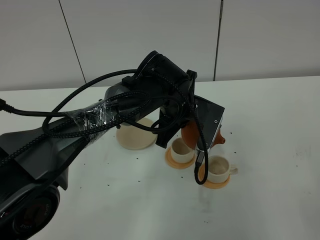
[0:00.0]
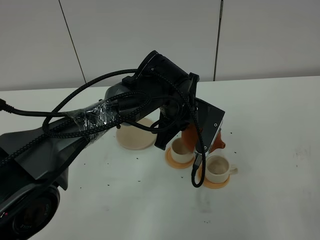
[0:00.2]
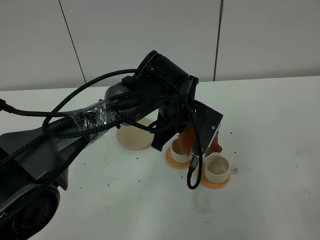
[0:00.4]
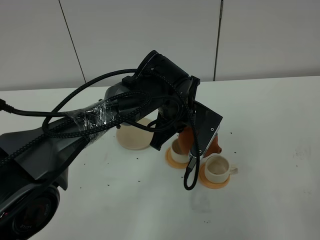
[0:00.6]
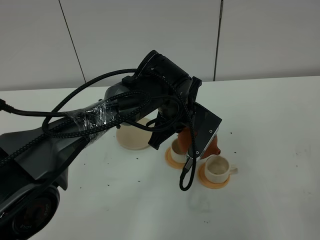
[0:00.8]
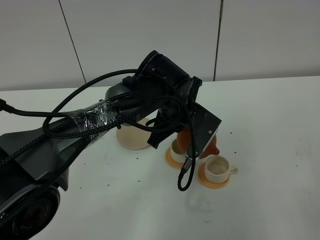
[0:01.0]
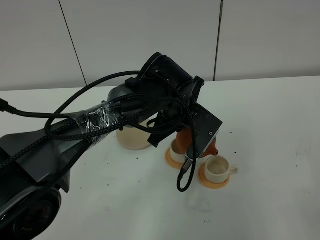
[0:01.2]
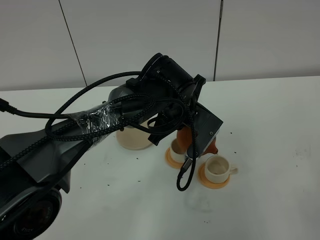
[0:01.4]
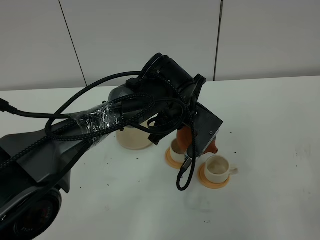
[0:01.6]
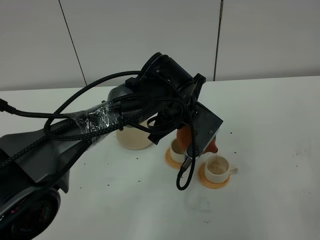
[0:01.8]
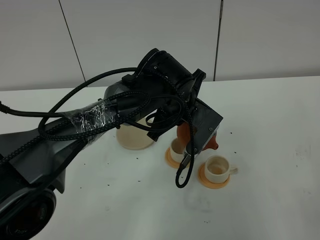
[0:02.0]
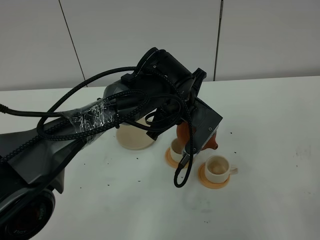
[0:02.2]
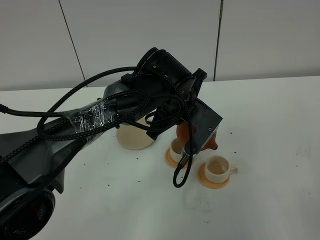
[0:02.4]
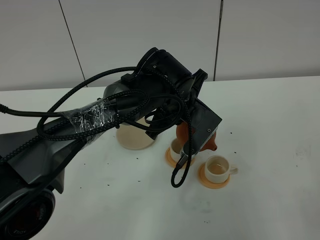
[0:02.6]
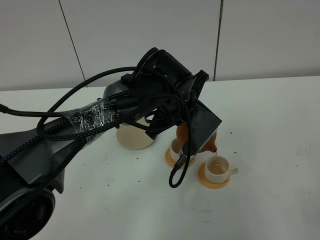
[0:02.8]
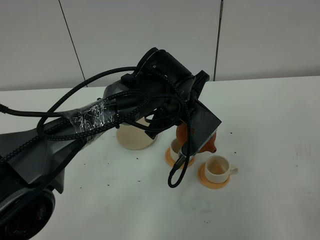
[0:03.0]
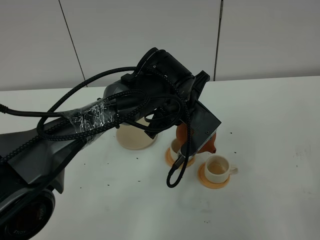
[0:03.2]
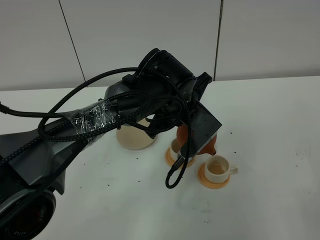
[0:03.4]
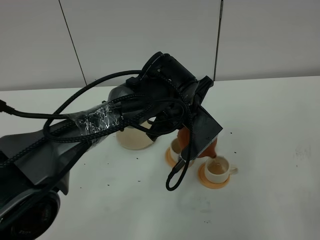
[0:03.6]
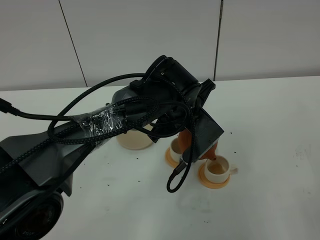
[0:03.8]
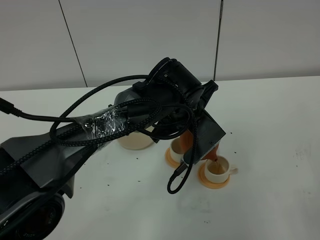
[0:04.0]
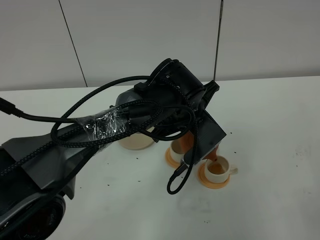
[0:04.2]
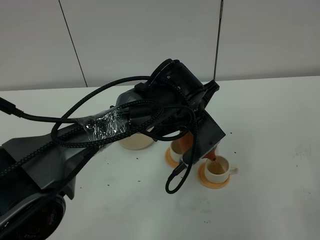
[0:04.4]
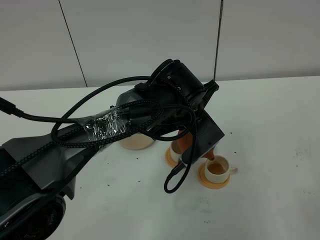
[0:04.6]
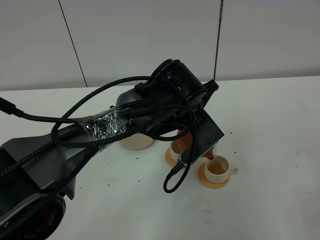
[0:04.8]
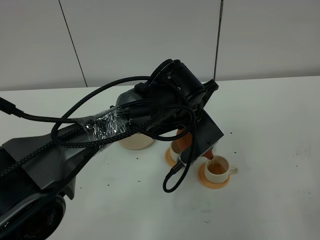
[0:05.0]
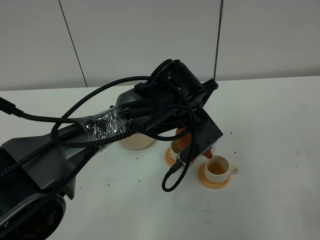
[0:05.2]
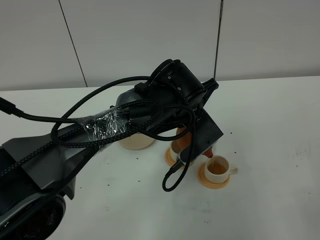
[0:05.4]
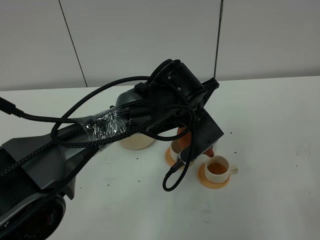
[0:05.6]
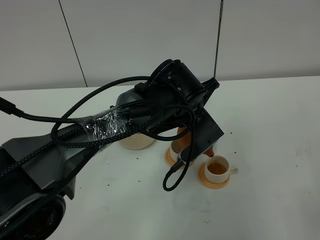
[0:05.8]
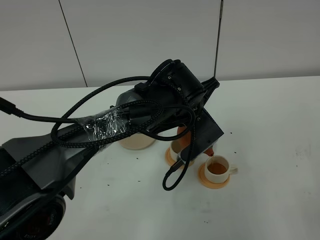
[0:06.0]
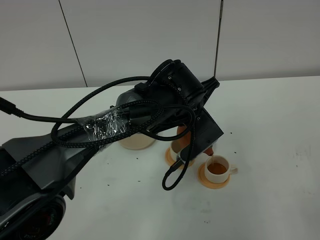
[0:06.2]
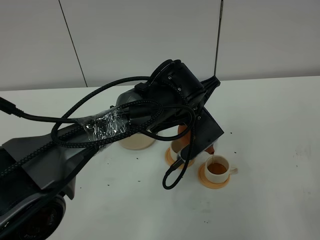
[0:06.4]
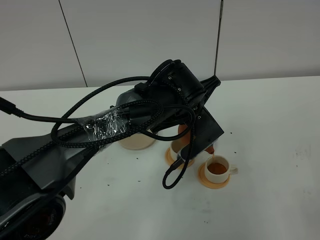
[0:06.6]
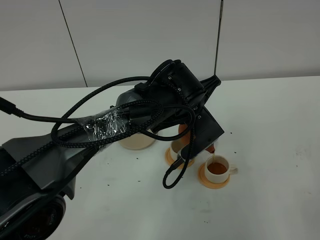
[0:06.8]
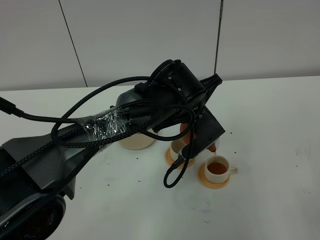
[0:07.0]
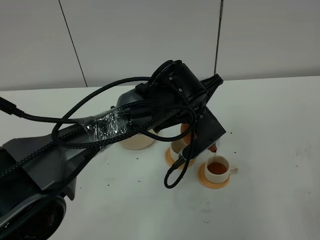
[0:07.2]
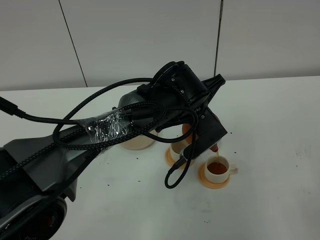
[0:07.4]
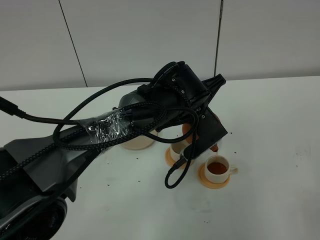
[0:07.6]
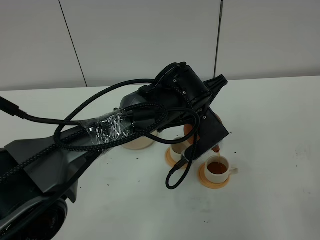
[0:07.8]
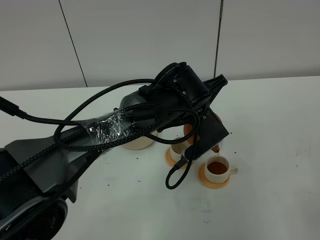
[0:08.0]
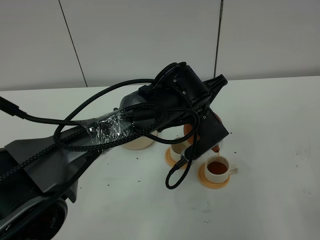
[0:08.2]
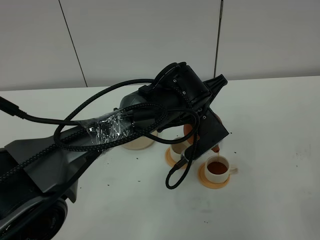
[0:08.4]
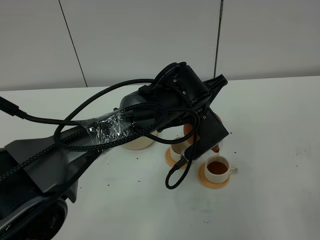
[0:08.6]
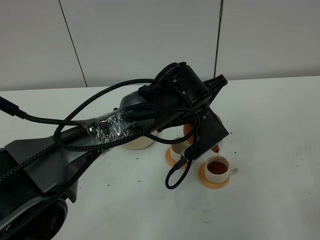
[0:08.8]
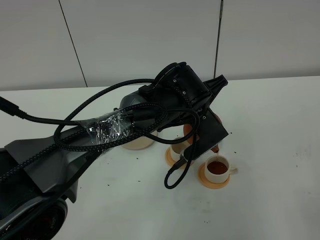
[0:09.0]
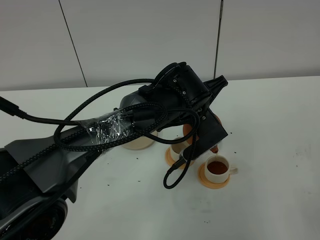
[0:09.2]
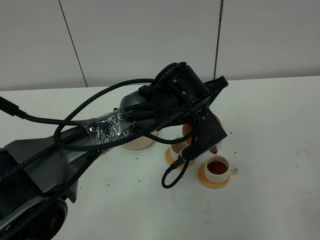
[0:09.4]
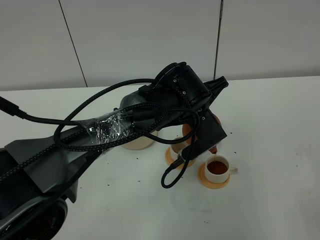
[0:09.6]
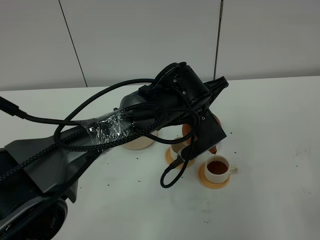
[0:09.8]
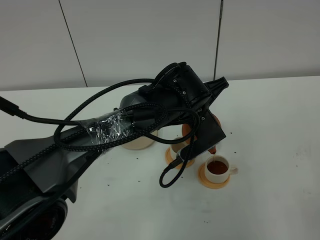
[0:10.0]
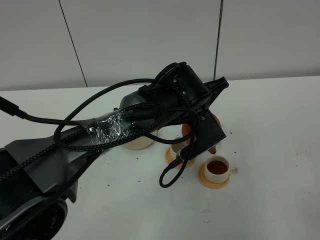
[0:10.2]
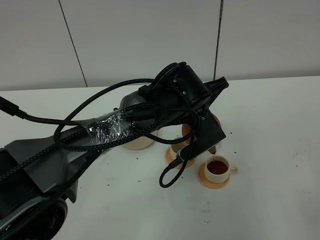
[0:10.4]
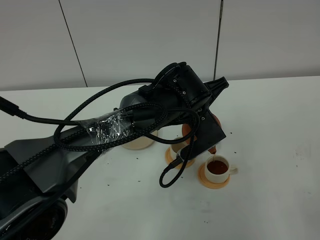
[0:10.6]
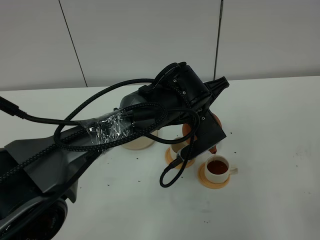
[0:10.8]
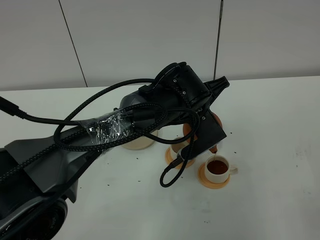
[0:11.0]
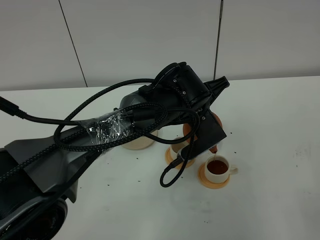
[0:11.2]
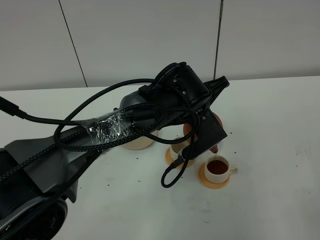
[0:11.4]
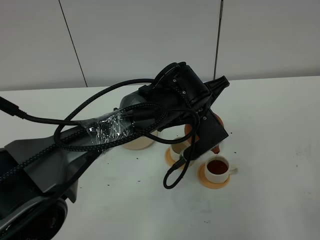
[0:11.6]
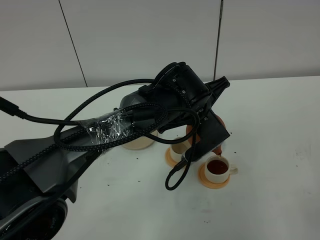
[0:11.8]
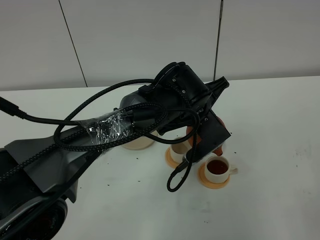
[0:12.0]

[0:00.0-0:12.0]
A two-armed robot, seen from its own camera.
Task of the whole recording: grasp the brown teapot and pour the tea into the two white teacups one by one, put the brown teapot back in its original place.
0:00.0 to 0:03.0: The grippers stay close to where they were, moving slightly.
0:03.0 to 0:04.4: The grippers move only a little.
0:04.4 to 0:06.0: Both grippers stay about where they are.
0:06.0 to 0:07.6: The two grippers keep their place.
0:07.6 to 0:10.4: The two grippers keep their place.
0:10.4 to 0:12.0: The grippers move only a little.

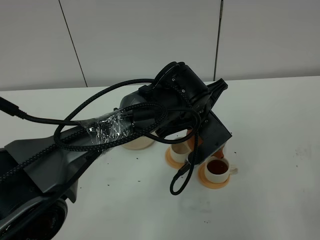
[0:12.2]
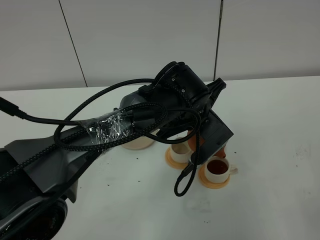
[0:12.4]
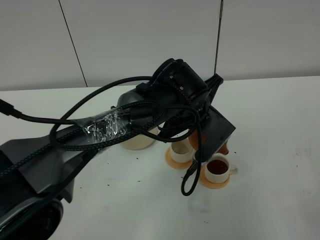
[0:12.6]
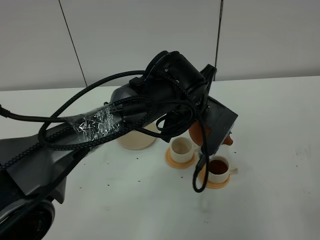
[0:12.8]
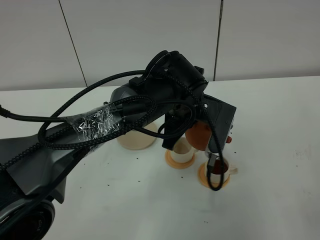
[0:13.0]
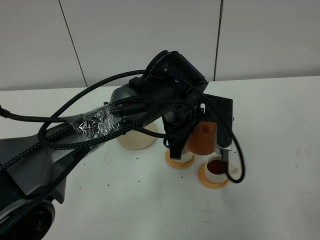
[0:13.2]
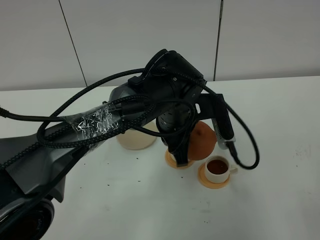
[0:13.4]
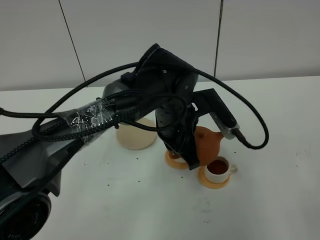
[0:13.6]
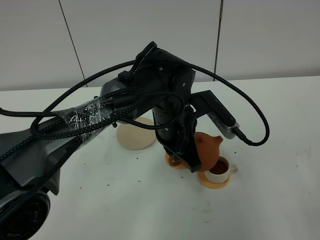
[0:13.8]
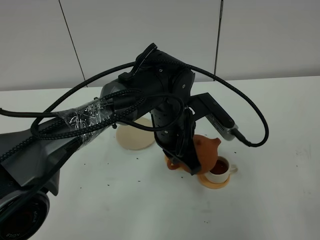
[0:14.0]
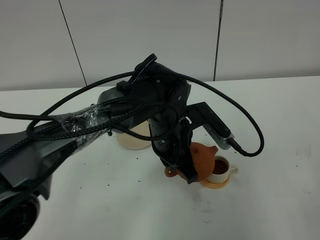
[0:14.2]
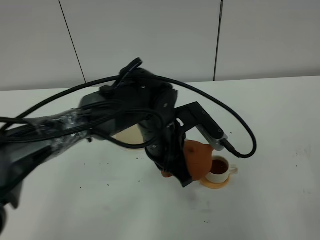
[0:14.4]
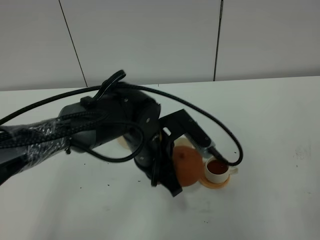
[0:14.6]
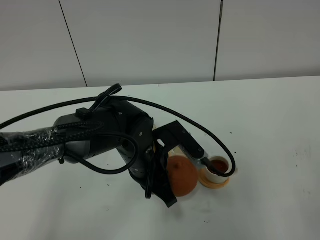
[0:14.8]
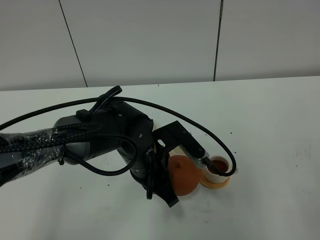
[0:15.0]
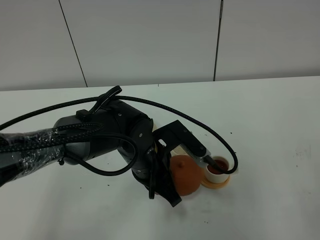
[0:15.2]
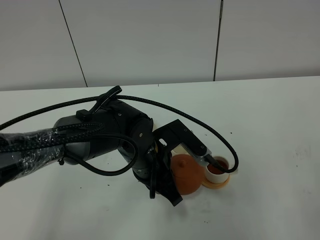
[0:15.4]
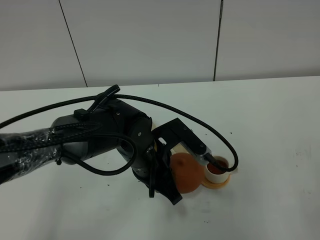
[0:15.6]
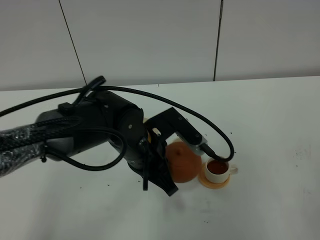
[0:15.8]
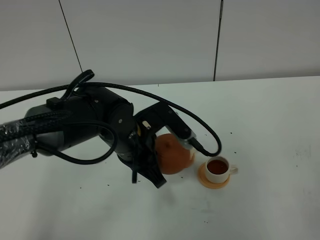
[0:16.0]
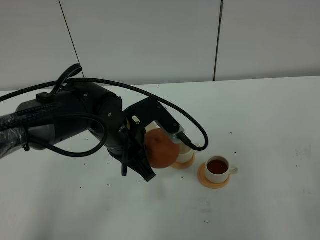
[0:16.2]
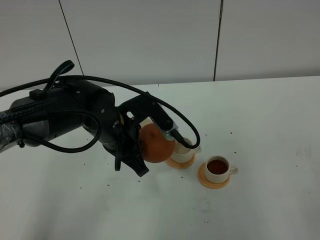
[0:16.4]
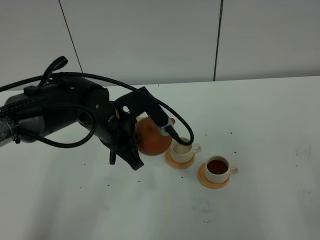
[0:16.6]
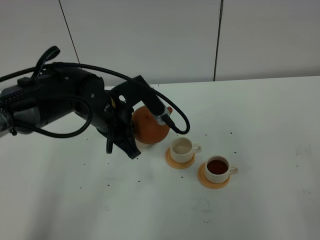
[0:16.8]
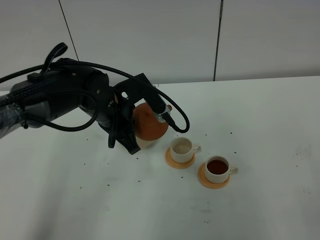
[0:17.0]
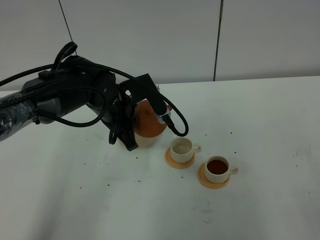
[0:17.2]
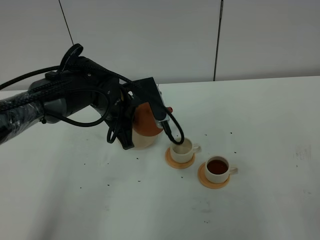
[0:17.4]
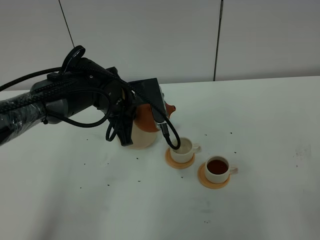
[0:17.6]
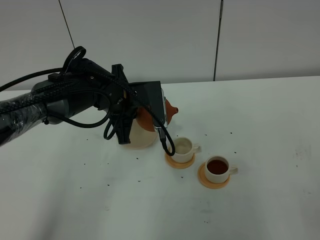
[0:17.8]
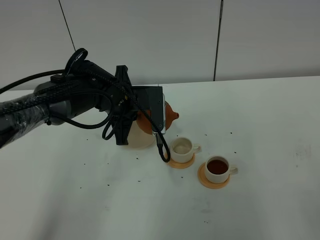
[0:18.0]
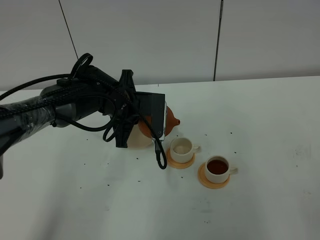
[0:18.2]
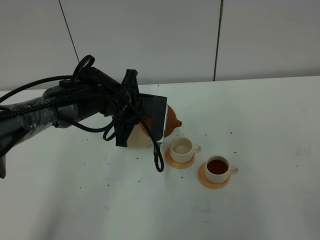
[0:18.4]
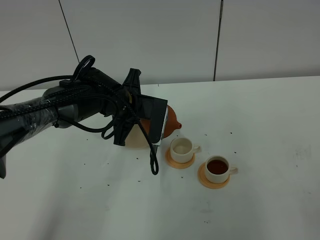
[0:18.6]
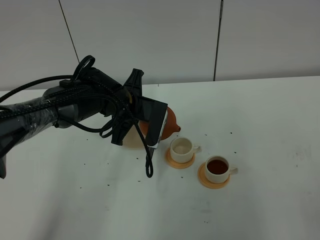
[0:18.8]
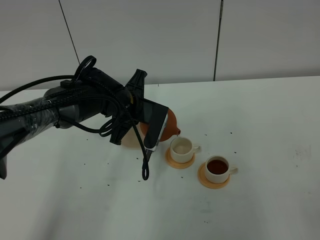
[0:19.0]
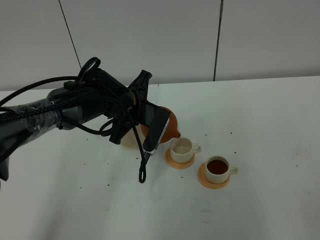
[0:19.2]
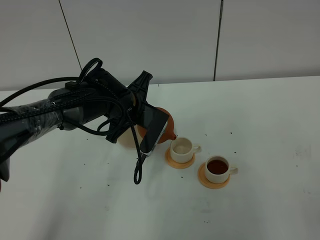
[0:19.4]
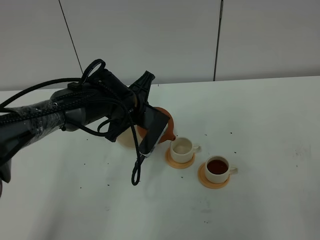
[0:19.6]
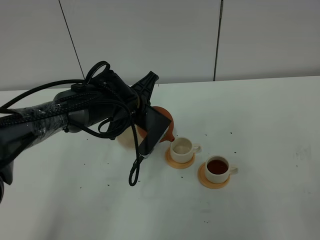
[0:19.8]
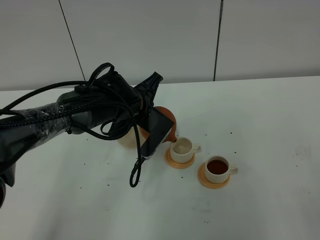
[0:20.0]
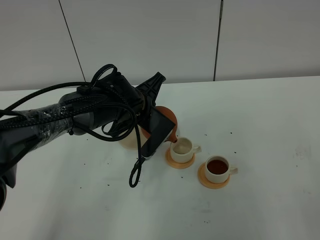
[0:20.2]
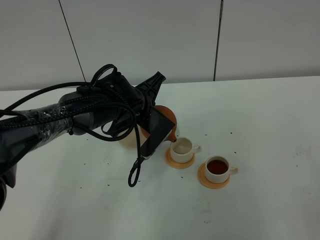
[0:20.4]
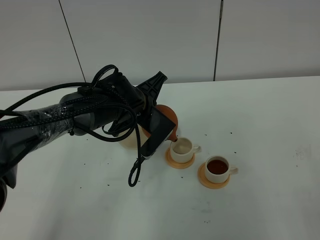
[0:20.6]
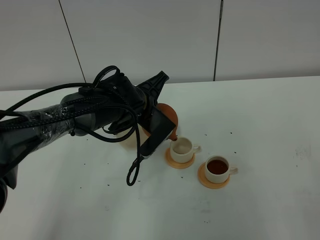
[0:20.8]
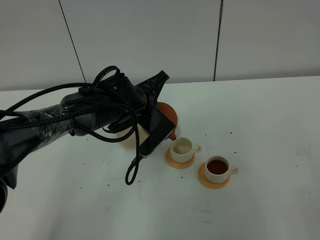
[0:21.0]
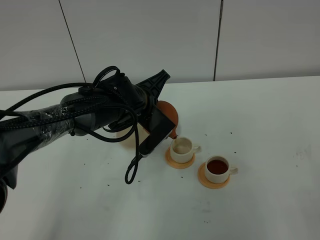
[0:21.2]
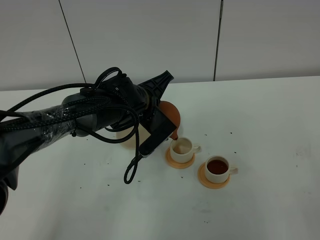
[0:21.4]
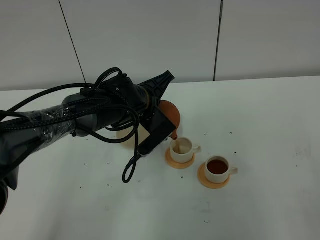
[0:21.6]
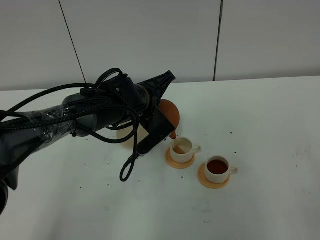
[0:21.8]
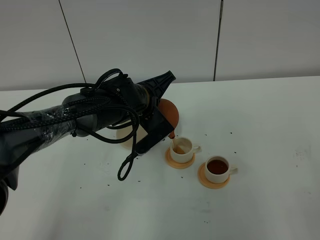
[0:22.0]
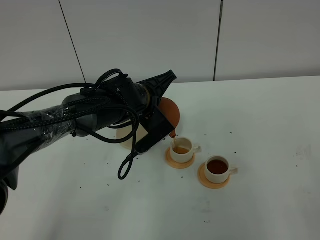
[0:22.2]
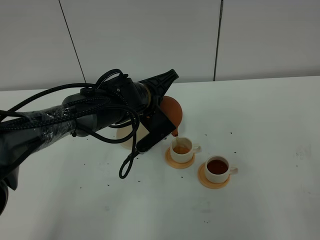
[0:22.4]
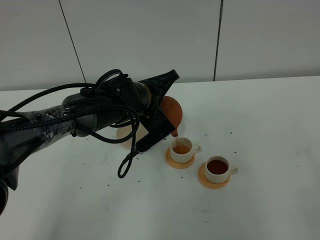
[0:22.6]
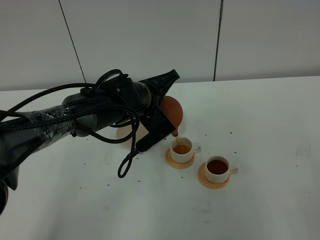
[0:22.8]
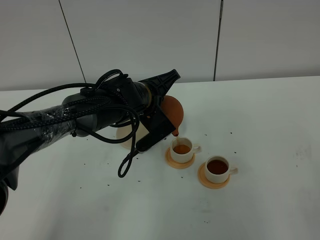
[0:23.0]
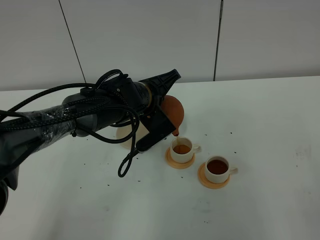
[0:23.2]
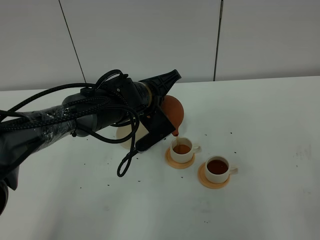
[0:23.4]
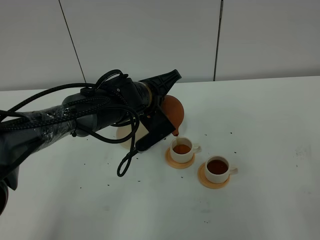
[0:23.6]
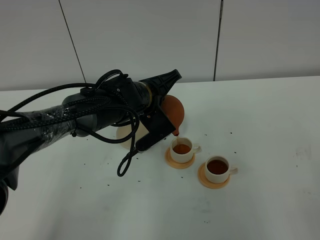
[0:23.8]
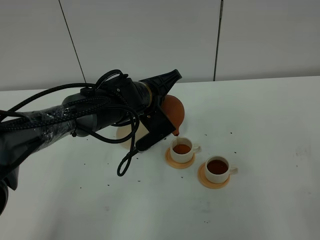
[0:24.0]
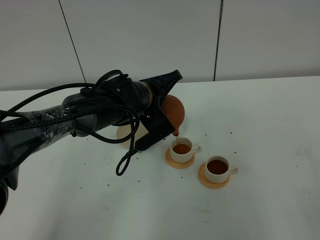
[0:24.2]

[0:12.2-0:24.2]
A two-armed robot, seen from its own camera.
Task of the whole recording: grasp the brown teapot and pour the tea into the two white teacups one by one, put the brown teapot back in its original place.
0:13.8 to 0:15.2: The left gripper goes about 5 cm to the left and backward.
0:15.2 to 0:16.6: The left gripper is displaced to the left by approximately 5 cm.
0:16.6 to 0:18.2: The left gripper goes roughly 5 cm forward.
0:19.8 to 0:21.2: The grippers move only a little.
0:21.2 to 0:22.6: The grippers make only small movements.
0:22.6 to 0:24.2: The two grippers keep their place.
